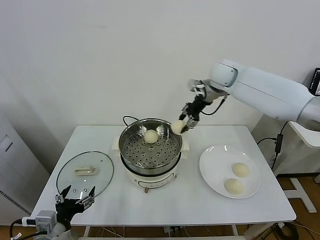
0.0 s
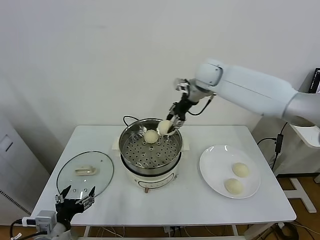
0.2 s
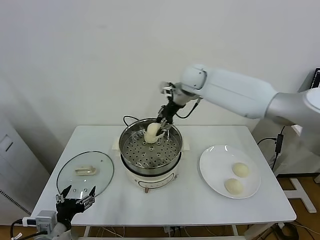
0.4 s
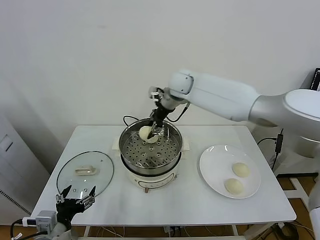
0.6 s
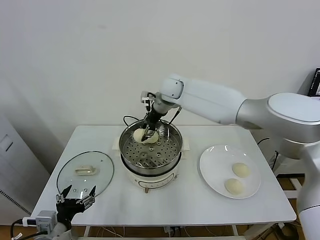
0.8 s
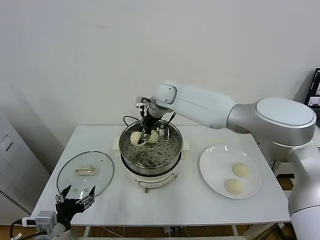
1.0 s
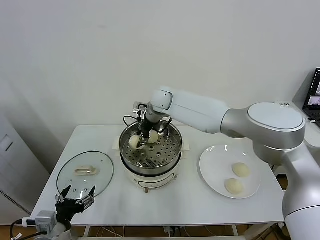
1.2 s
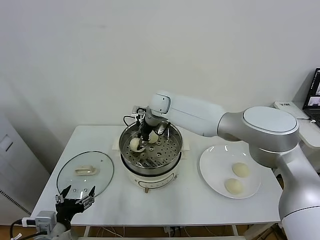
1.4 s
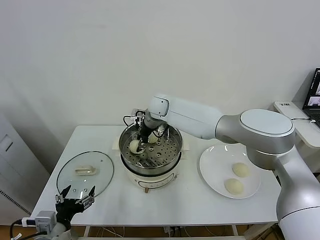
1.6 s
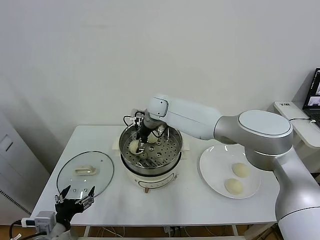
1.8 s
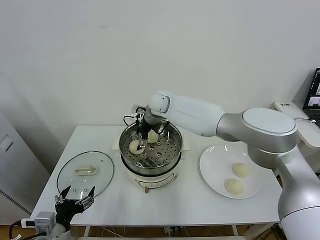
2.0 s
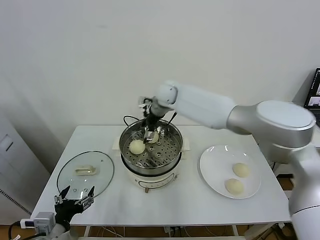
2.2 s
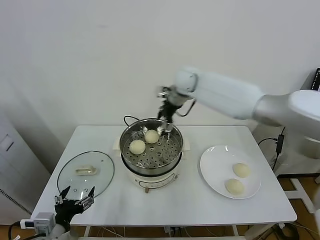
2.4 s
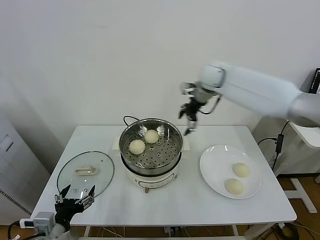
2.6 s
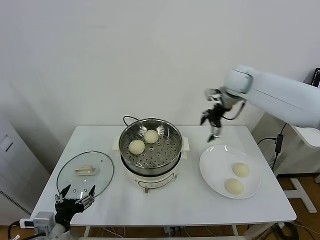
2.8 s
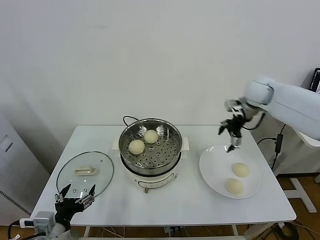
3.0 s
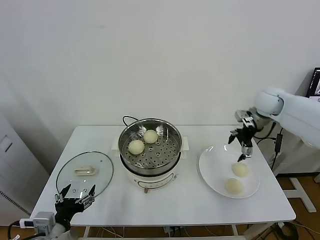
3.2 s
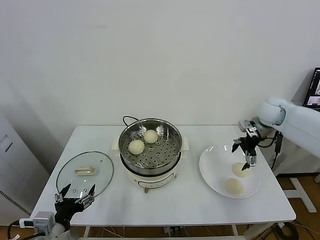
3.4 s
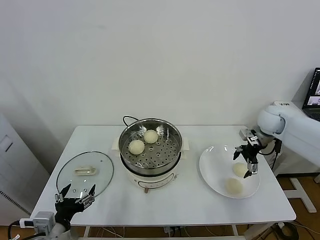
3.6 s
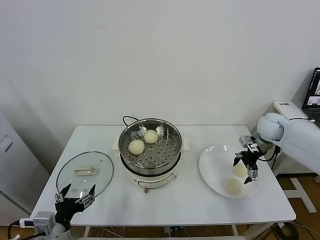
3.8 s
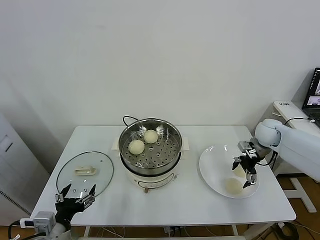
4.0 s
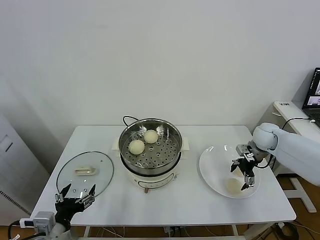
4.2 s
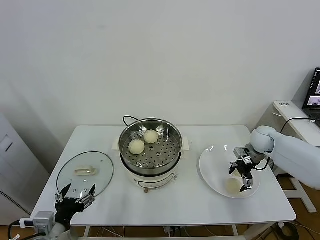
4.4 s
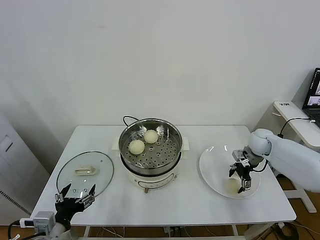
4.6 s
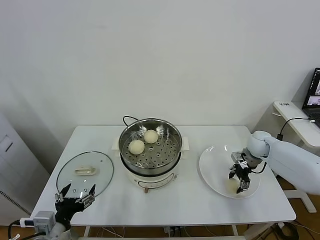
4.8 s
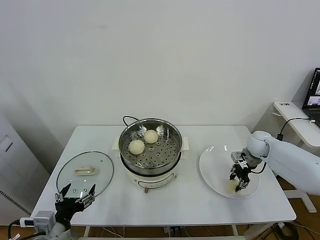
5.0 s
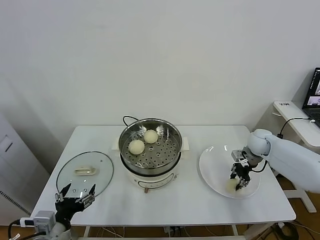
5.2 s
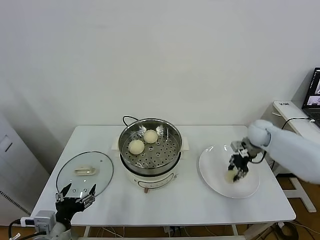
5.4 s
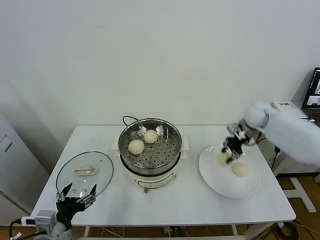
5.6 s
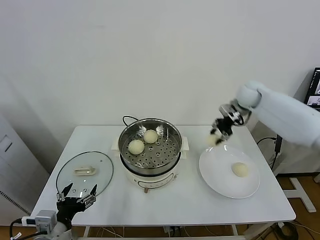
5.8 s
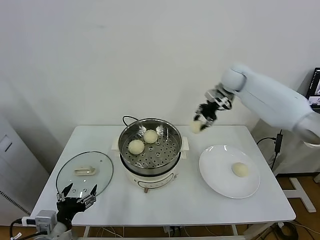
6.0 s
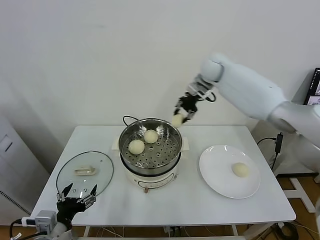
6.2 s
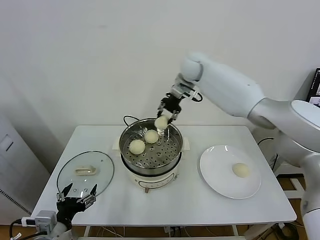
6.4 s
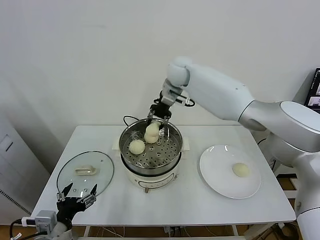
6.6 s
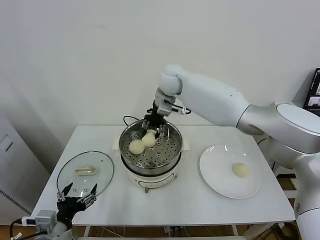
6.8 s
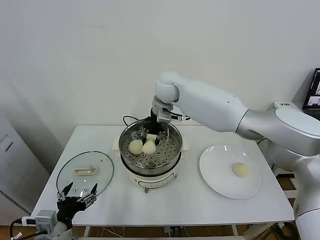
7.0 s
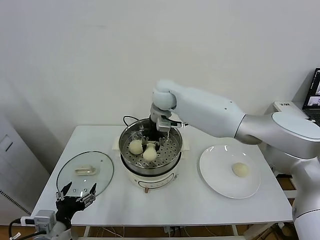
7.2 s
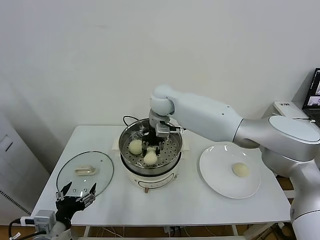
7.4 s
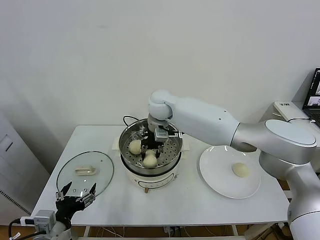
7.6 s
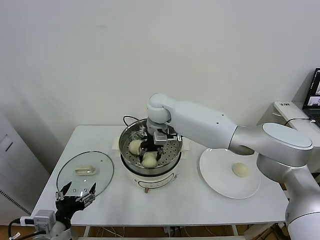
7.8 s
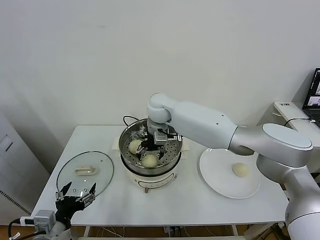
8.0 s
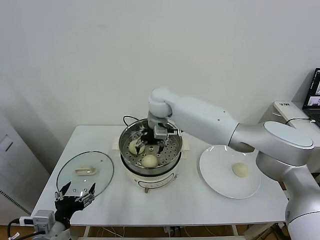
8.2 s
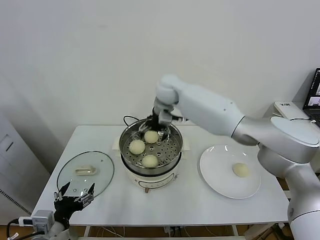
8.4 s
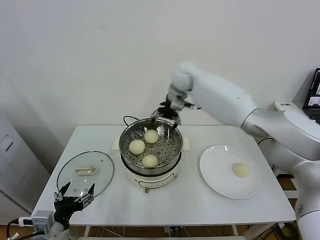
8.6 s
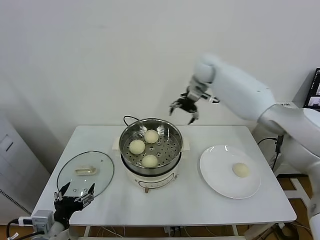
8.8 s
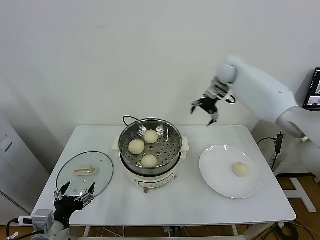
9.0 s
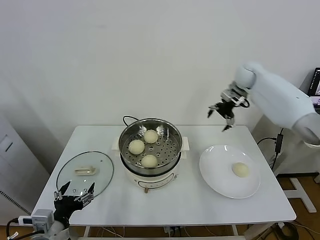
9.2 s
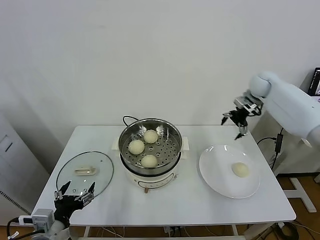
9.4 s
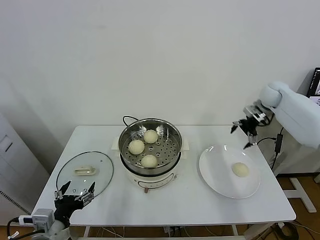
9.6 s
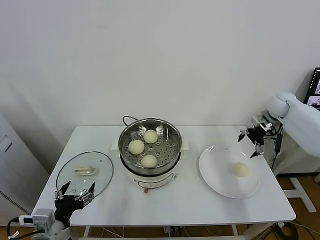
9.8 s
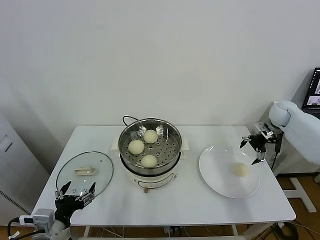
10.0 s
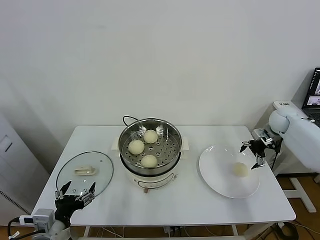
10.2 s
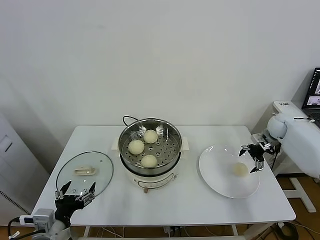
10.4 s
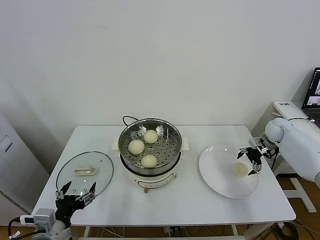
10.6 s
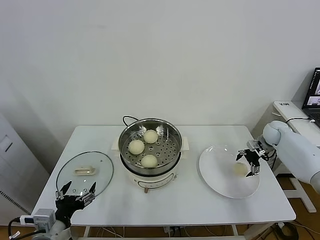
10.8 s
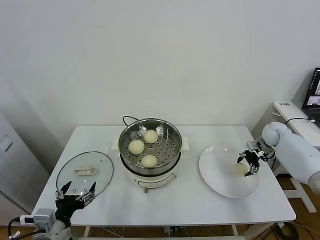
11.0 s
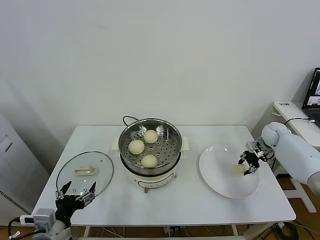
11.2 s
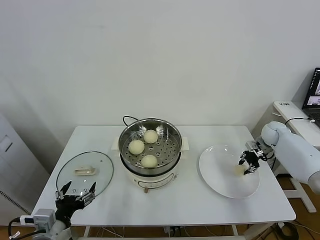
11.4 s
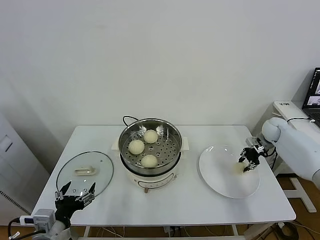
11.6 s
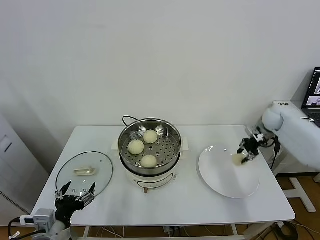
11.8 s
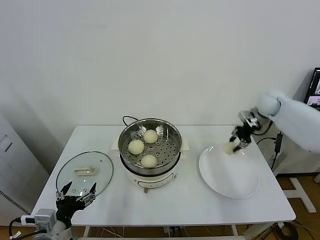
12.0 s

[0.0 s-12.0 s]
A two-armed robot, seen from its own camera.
Task of the whole recording: take steamed baozi put them in steamer.
Step, 0.0 to 2.0 s: Place the baozi on the steamer with right gripper.
Step, 2.2 to 4.8 s: Grasp the baozi in the plate with right gripper.
Step, 5.0 to 8.0 s: Place the baozi on the steamer with right gripper.
Step, 8.2 to 11.0 s: Grasp the baozi in the plate with right gripper.
0.0 to 1.6 s: The right gripper travels to the left and downward by some 25 cm.
1.6 to 3.0 s: The right gripper travels to the right by about 35 cm, and opens up.
3.0 to 4.4 s: The right gripper travels downward by approximately 20 cm.
4.4 to 6.0 s: The right gripper travels upward, to the left and forward by approximately 30 cm, and closes.
6.0 to 7.6 s: The right gripper is displaced to the left by some 25 cm.
7.6 to 9.0 s: The right gripper is displaced to the right by about 25 cm, and opens.
9.0 to 10.4 s: The right gripper goes some 30 cm to the right, downward and backward.
10.4 to 12.0 s: The right gripper shifts about 15 cm upward and to the left, and closes.

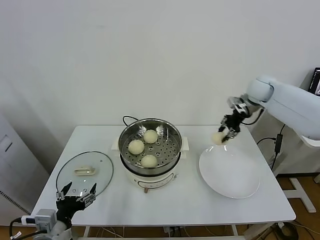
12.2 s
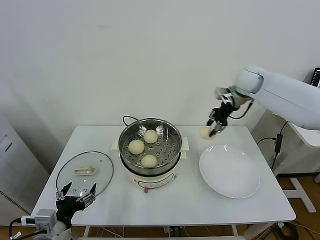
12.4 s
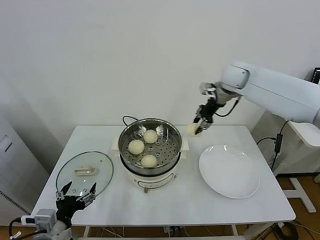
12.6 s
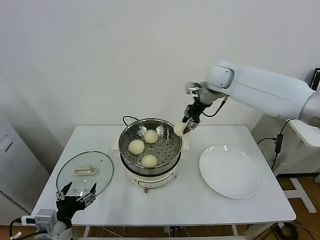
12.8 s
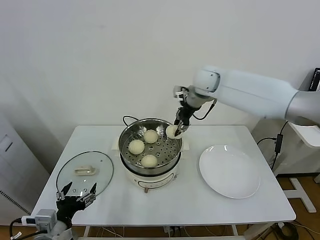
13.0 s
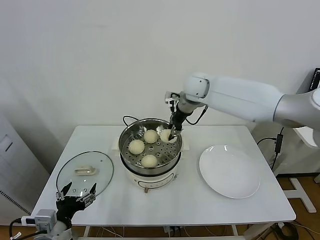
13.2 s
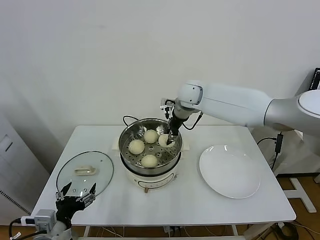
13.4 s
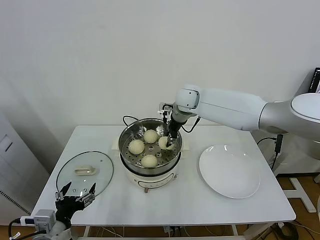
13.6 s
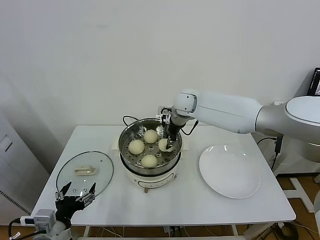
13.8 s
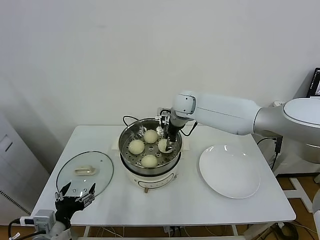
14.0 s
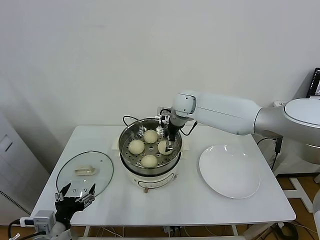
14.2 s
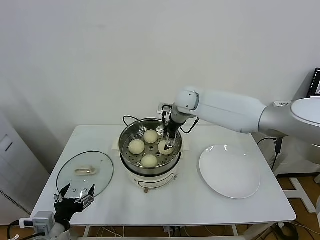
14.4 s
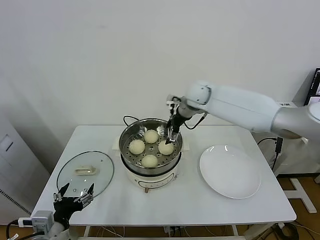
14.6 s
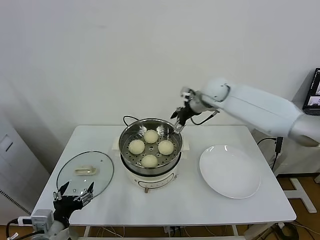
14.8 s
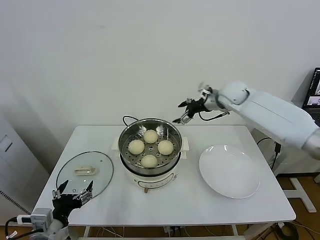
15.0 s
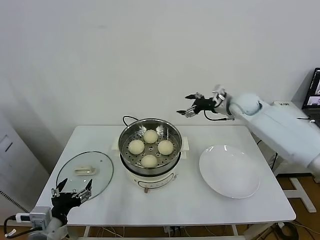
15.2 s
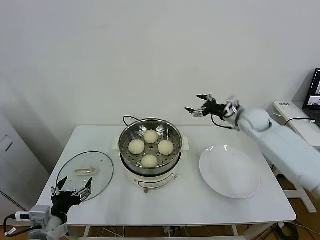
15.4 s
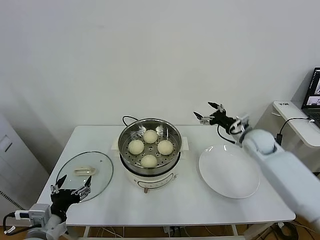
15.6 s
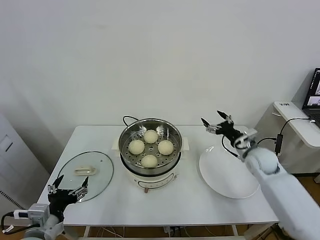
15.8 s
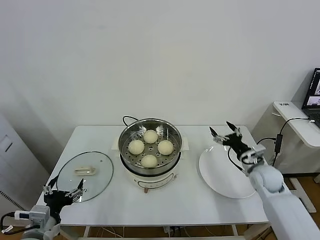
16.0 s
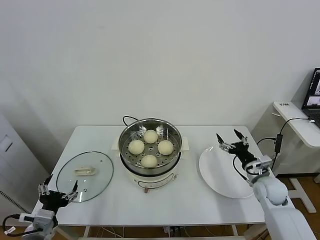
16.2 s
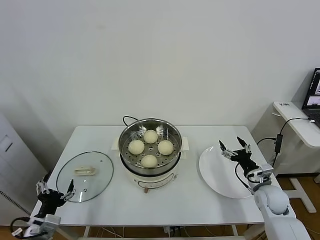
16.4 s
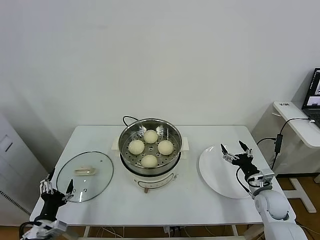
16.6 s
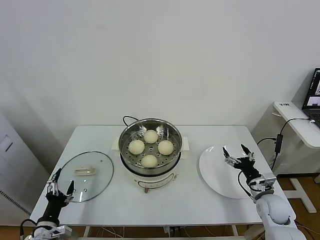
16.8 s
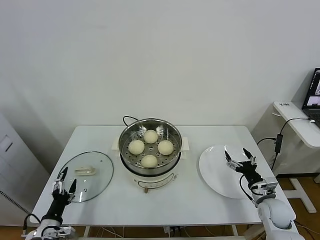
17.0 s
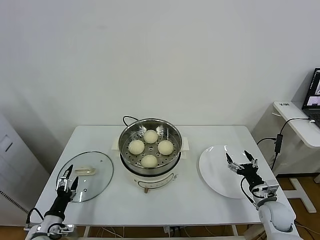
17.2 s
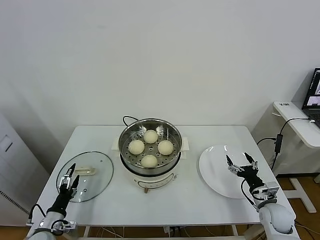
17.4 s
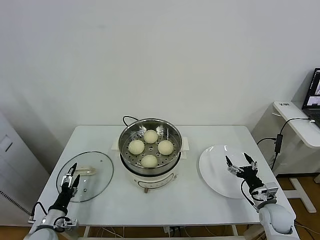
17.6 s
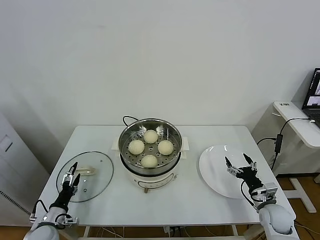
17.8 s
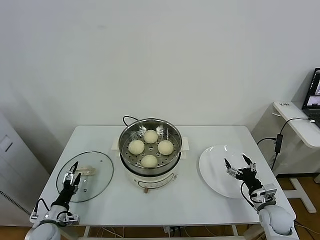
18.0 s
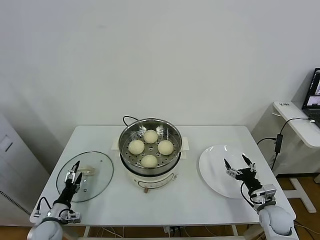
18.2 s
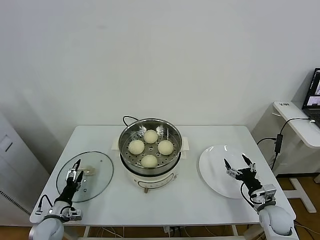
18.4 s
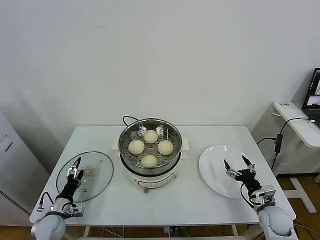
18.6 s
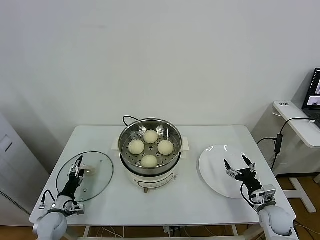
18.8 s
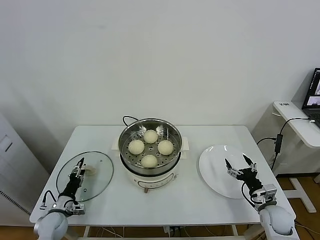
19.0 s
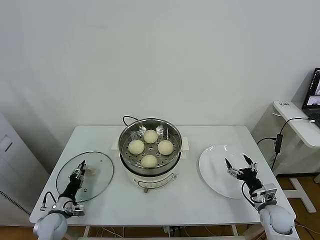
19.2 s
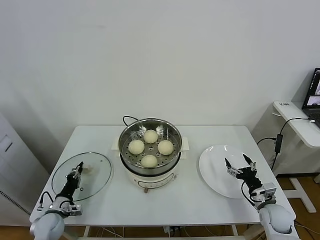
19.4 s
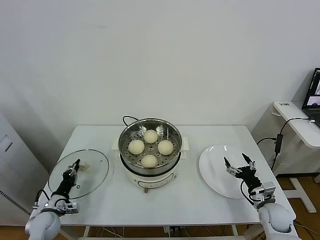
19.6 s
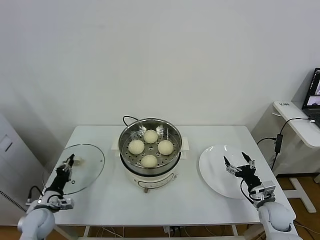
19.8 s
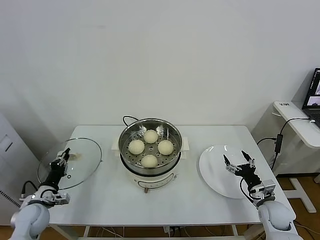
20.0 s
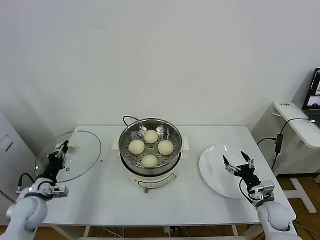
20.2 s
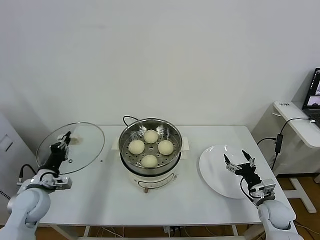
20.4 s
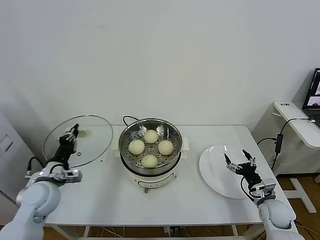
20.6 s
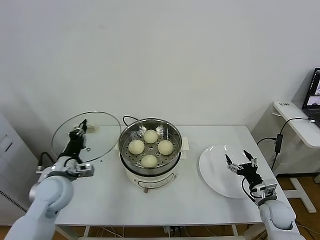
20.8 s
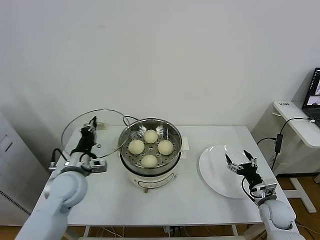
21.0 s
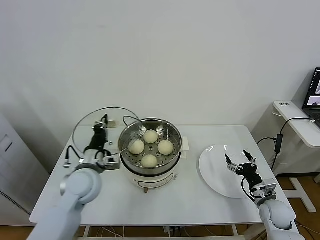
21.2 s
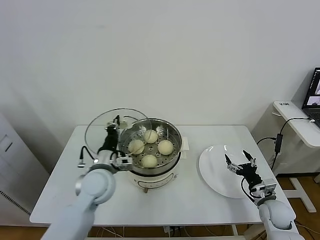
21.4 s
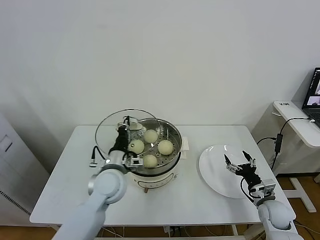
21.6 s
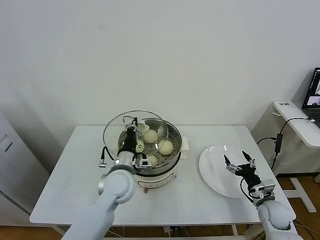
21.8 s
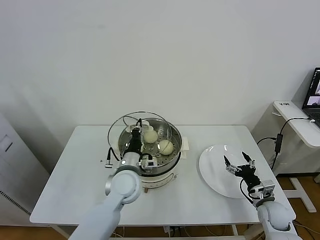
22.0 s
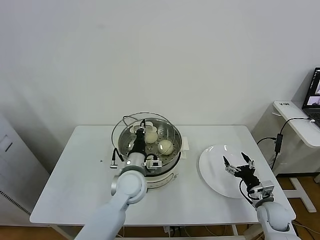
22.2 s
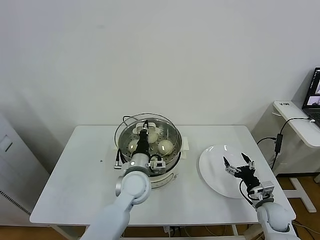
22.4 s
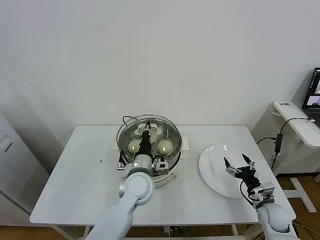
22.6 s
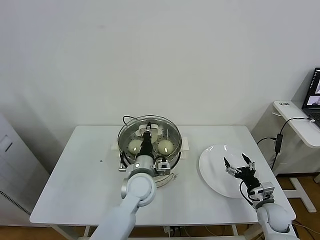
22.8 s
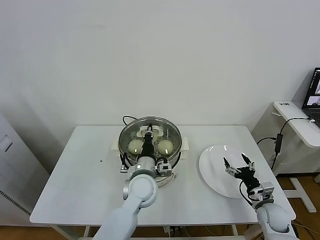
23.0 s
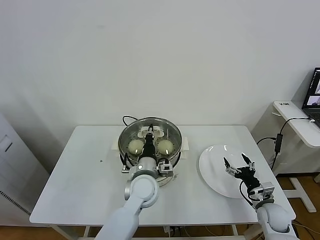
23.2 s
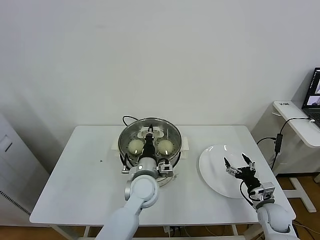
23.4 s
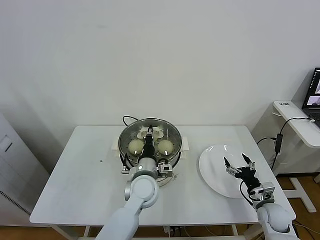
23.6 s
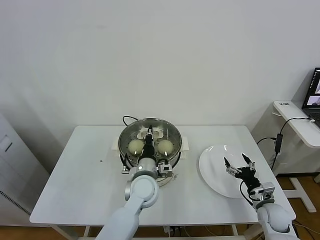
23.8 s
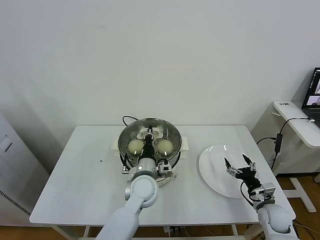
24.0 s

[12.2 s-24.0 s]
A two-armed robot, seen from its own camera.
Task of the whole recording: take steamed baozi put them in steamer.
Step, 12.2 to 14.4 s: Place the baozi on the steamer with right gripper.
Step, 14.6 to 19.6 s: Grasp the pot lid with left gripper.
12.2 to 13.6 s: The right gripper travels to the left by some 25 cm.
13.6 to 15.2 s: The right gripper heads to the right, covering about 20 cm, and opens its fingers.
15.2 to 16.6 s: The left gripper heads downward and to the left, covering about 10 cm. The right gripper shifts roughly 35 cm downward and backward.
16.6 to 18.2 s: The right gripper shifts by about 5 cm. The left gripper is displaced downward and forward by approximately 15 cm.
18.2 to 19.6 s: The left gripper closes its fingers.
19.6 to 21.0 s: The left gripper is displaced upward and to the right by about 25 cm.
21.0 to 22.6 s: The left gripper is displaced to the right by approximately 20 cm.
22.6 to 24.0 s: The grippers stay close to where they were, moving slightly.
